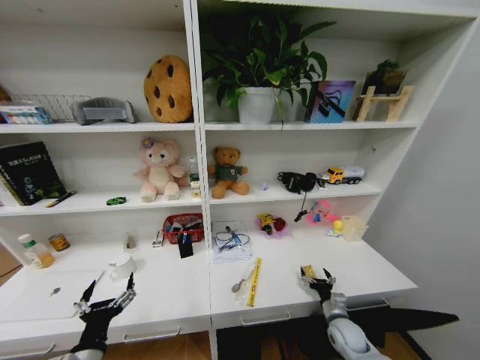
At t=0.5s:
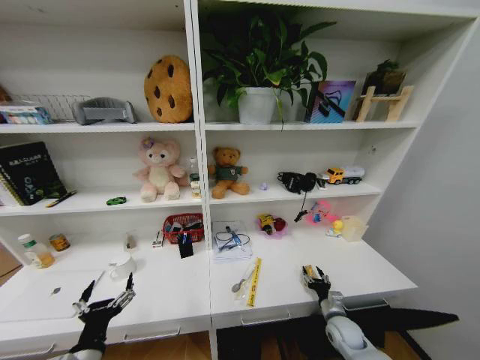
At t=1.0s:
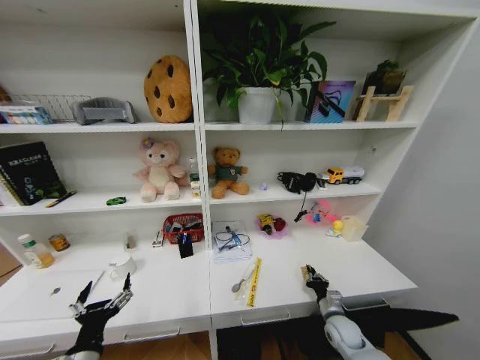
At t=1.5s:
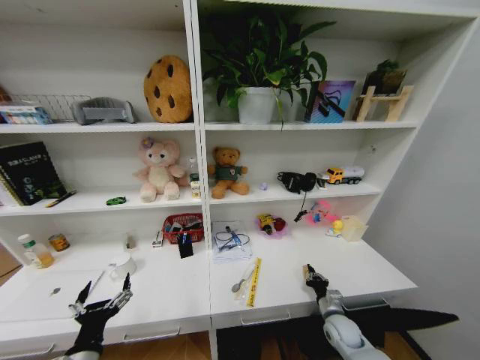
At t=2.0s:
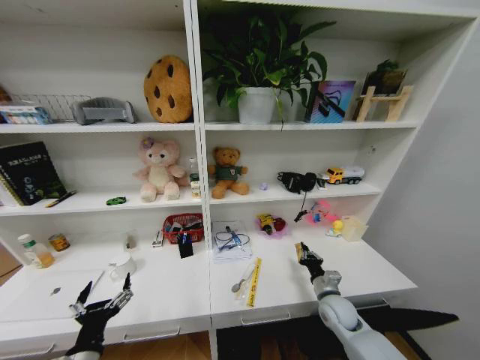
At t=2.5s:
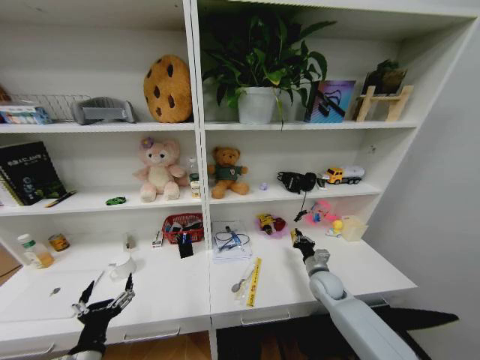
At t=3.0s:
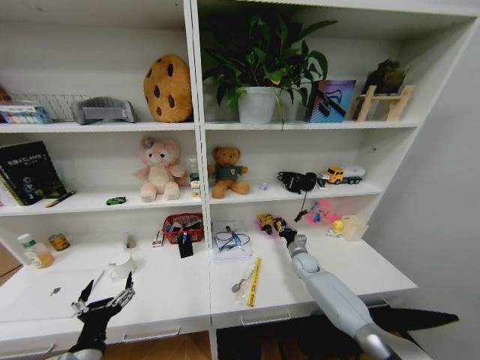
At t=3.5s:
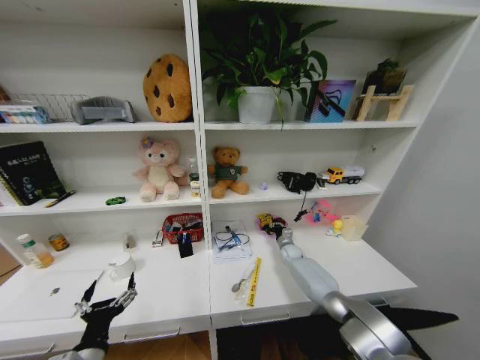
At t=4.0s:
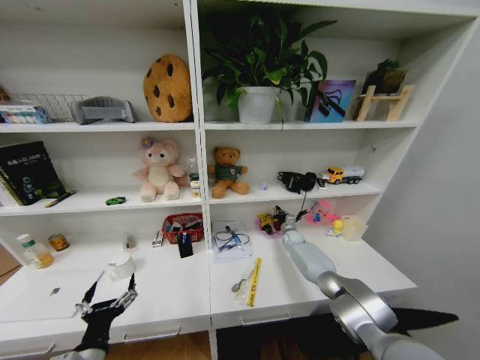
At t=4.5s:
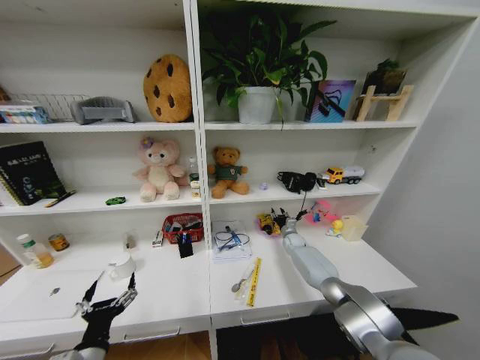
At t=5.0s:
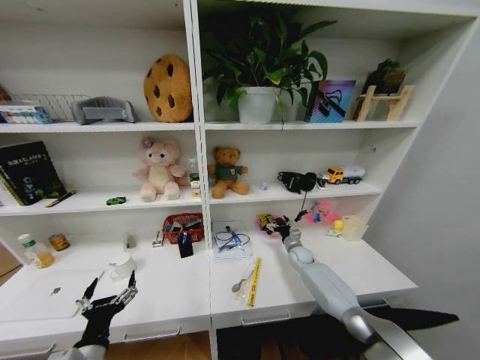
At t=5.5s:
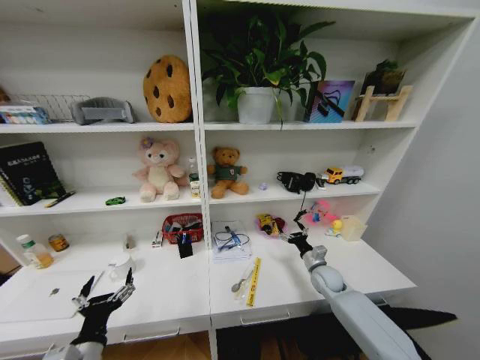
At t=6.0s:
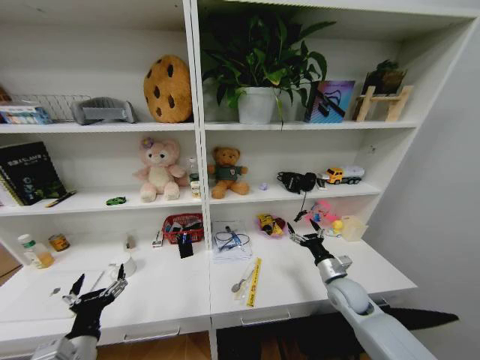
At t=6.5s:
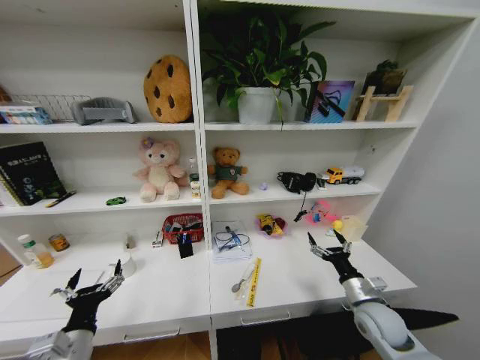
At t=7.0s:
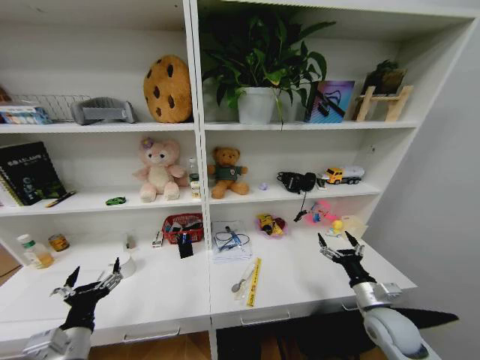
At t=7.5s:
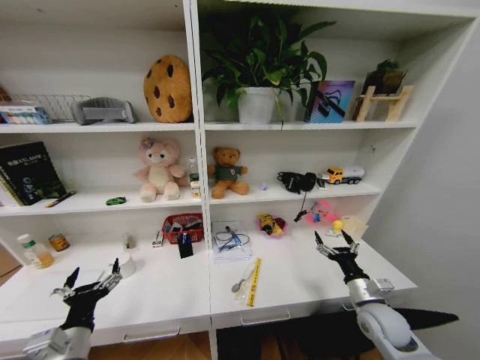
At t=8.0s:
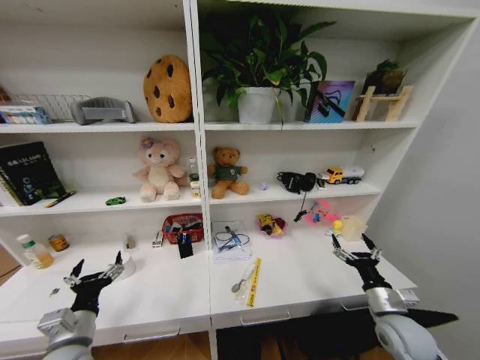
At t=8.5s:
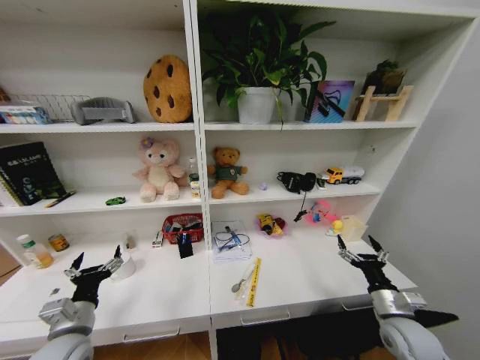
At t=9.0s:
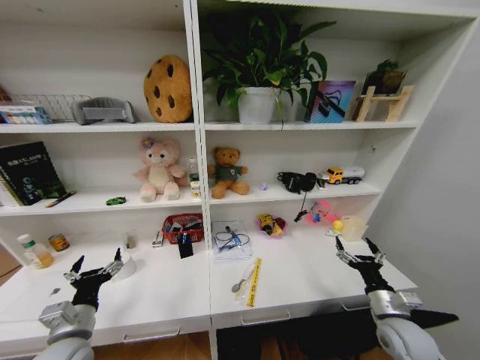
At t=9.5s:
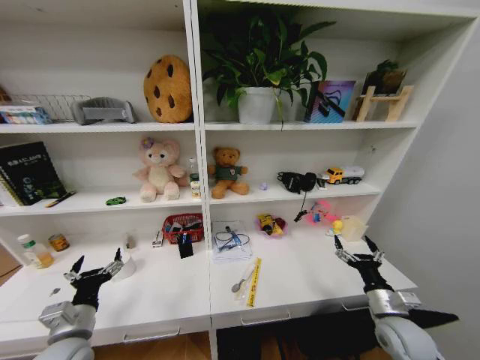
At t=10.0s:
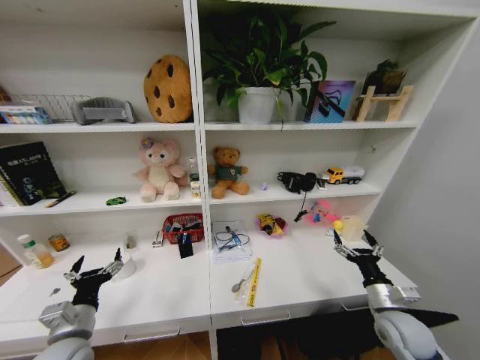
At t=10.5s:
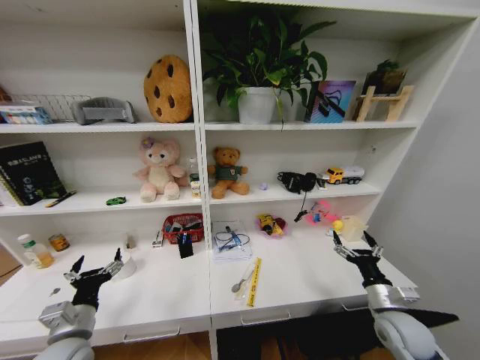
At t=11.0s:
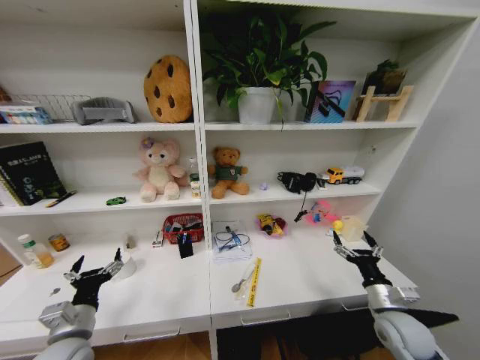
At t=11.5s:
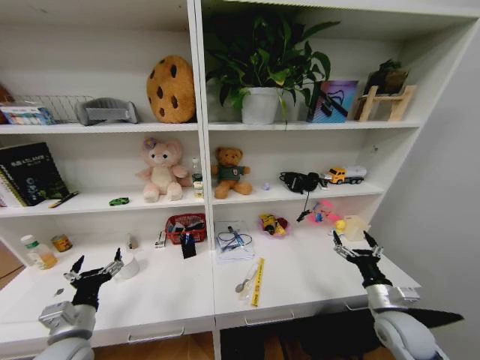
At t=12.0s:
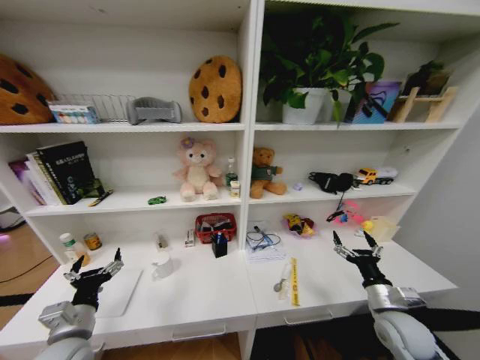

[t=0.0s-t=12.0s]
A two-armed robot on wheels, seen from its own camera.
Task of the whole recording: Organize the objects on the table.
t=0.0s to t=2.0s: The right gripper moves upward, some 5 cm, and closes up.
t=2.0s to t=4.0s: The right gripper travels forward by some 30 cm.
t=4.0s to t=6.0s: The right gripper moves backward, some 25 cm, and opens its fingers.
t=6.0s to t=8.0s: The left gripper heads forward, covering about 5 cm. Meanwhile the right gripper goes roughly 15 cm backward and to the right.
t=8.0s to t=10.0s: The grippers stay close to where they were, moving slightly.

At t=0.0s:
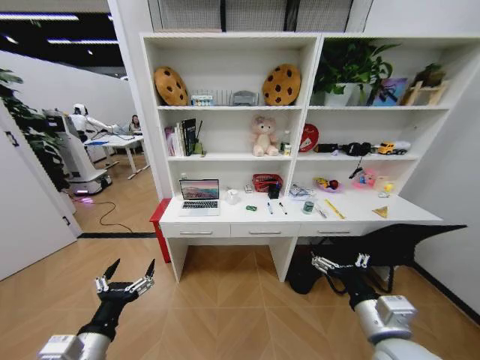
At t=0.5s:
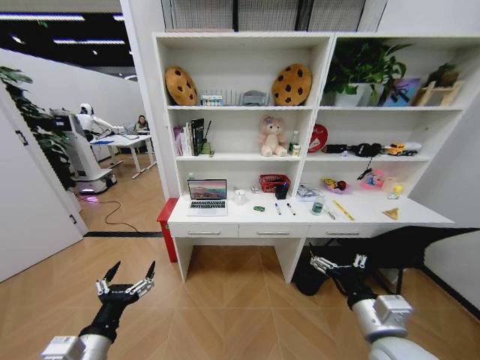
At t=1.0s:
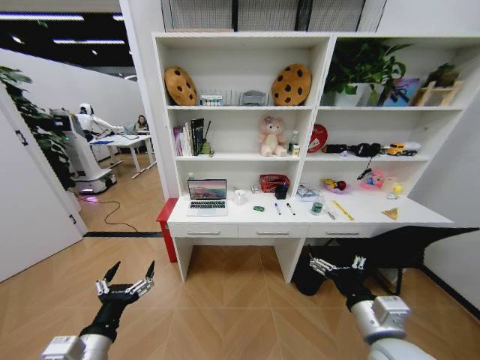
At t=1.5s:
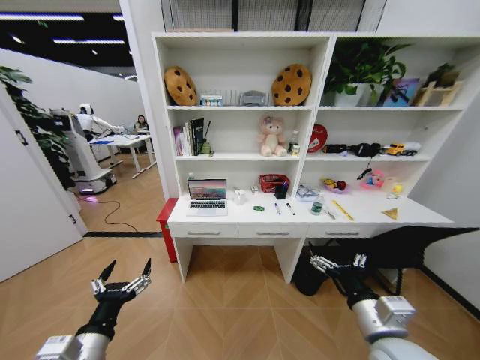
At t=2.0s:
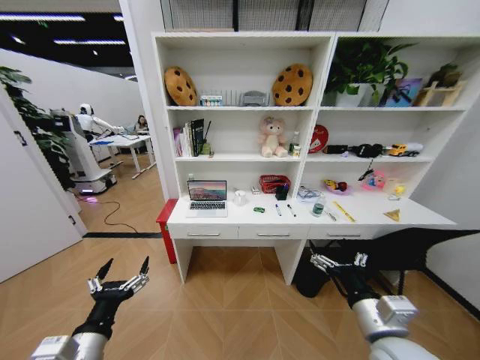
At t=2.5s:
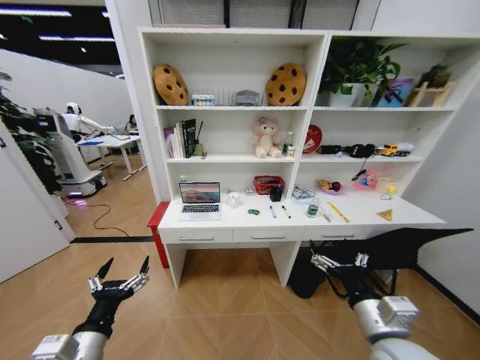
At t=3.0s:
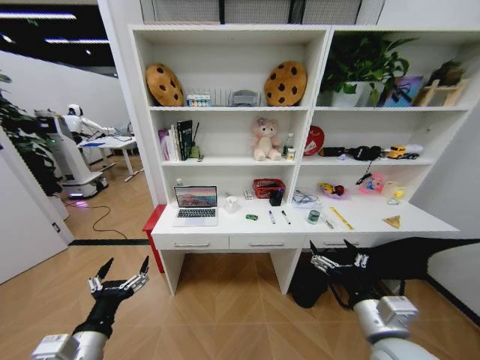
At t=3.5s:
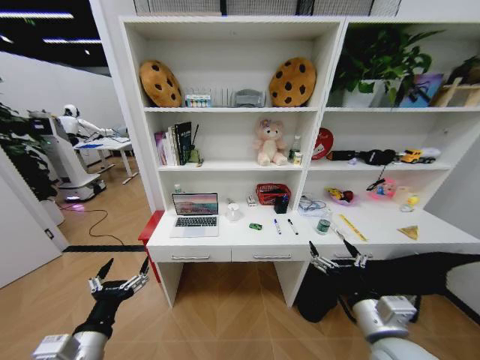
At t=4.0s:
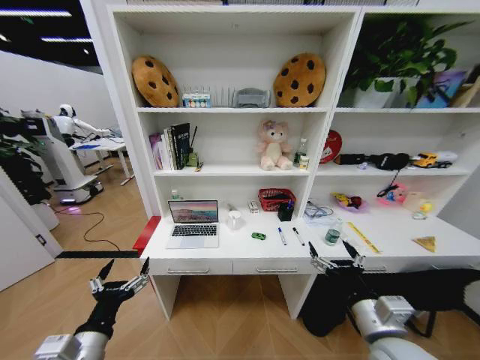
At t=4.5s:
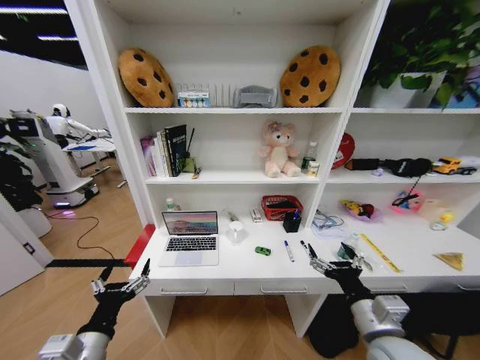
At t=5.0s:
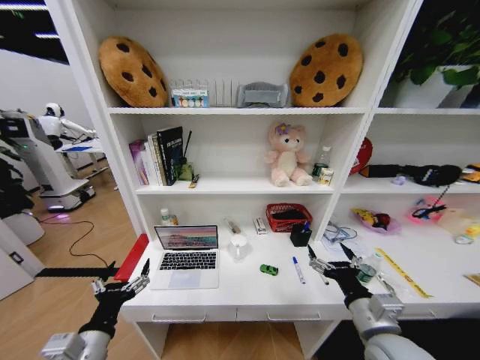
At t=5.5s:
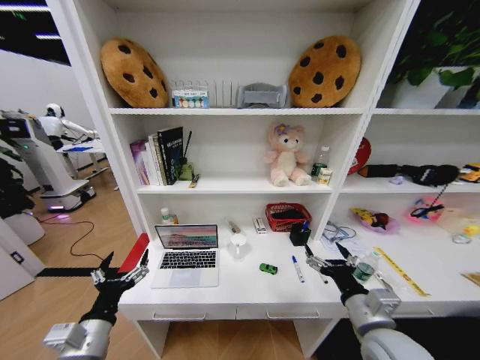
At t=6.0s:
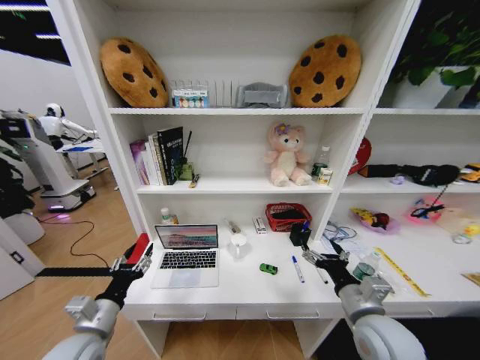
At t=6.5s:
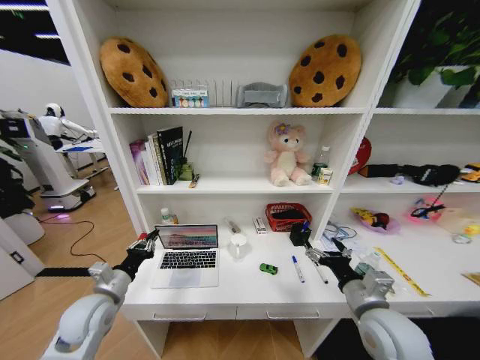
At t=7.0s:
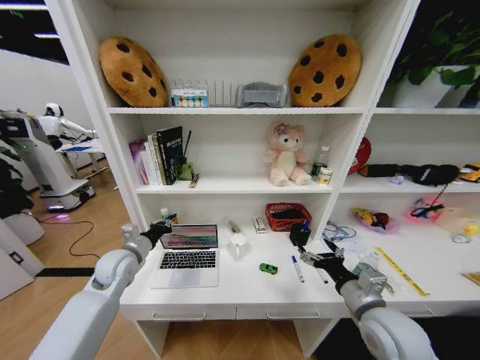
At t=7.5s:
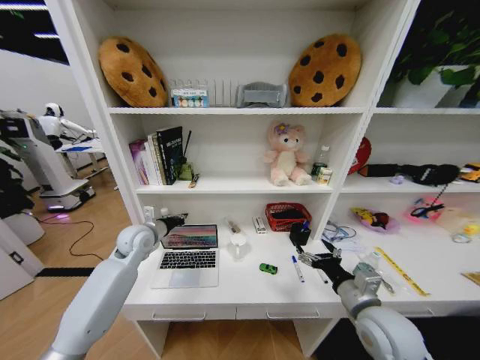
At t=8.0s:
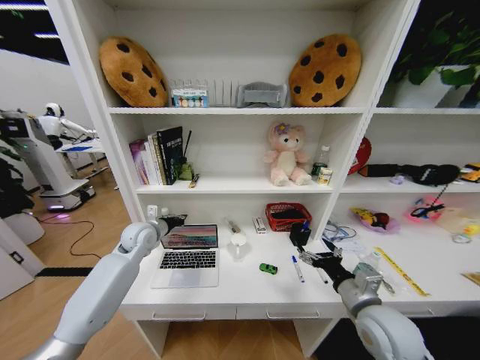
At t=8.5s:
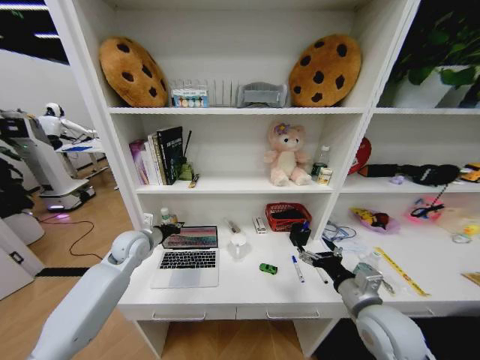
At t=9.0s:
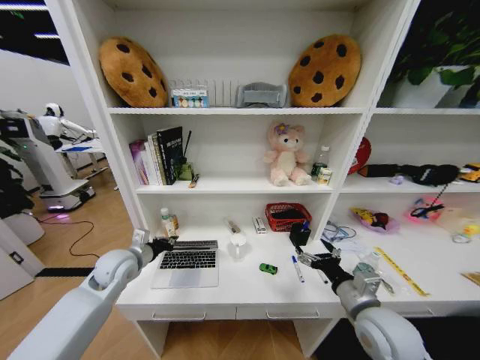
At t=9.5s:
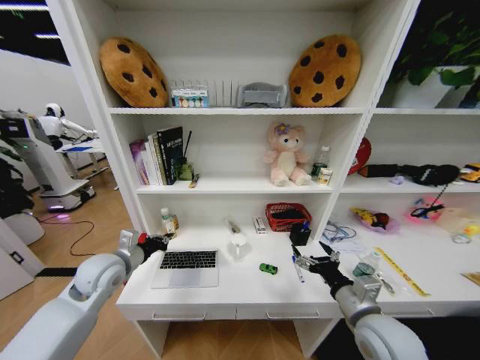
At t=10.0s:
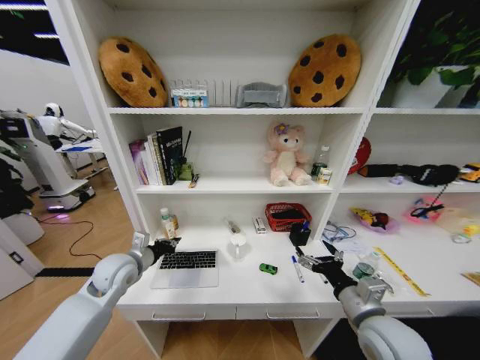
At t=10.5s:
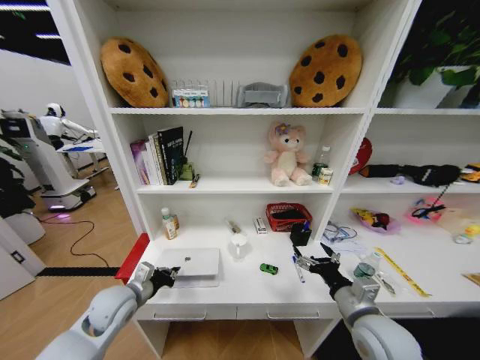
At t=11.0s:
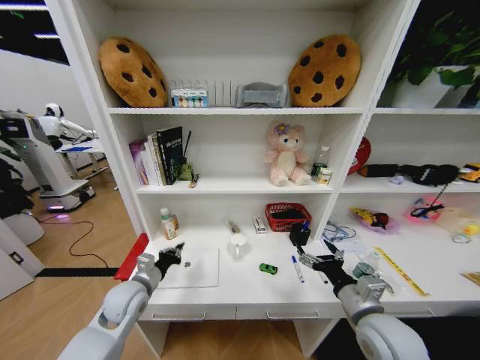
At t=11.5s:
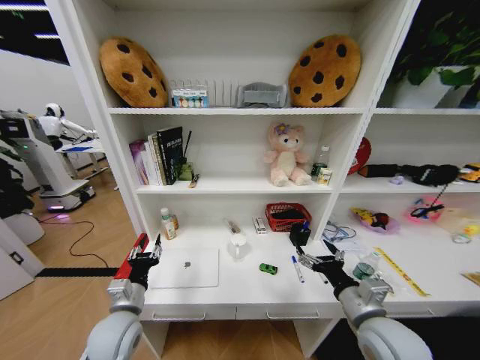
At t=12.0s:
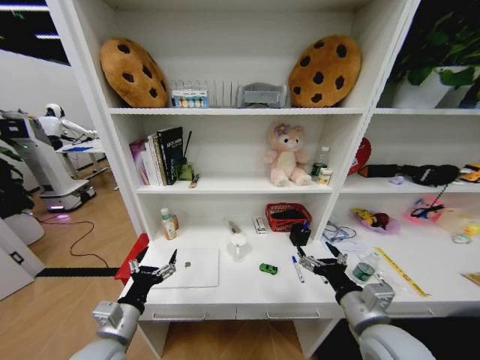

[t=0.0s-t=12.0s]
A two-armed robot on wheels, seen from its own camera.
Task of the whole recording: Organize the objects on the table.
t=4.0s to t=6.0s: The left gripper changes place by some 5 cm.
t=6.0s to t=8.0s: The left gripper travels forward by about 30 cm, and closes up.
t=8.0s to t=10.0s: The left gripper moves backward, approximately 10 cm.
t=10.0s to t=12.0s: The left gripper travels backward by some 20 cm, and opens its fingers.

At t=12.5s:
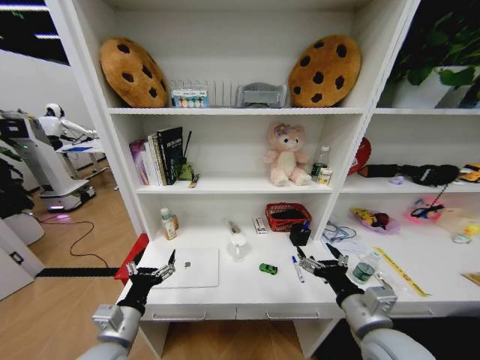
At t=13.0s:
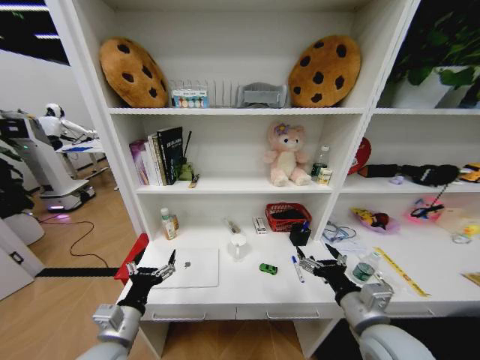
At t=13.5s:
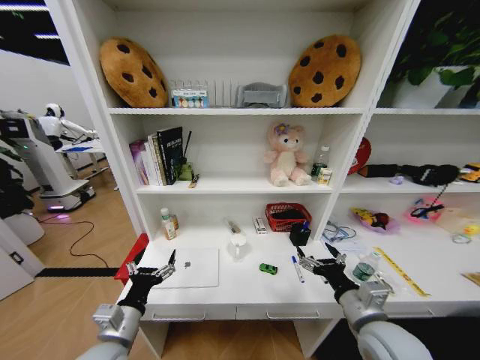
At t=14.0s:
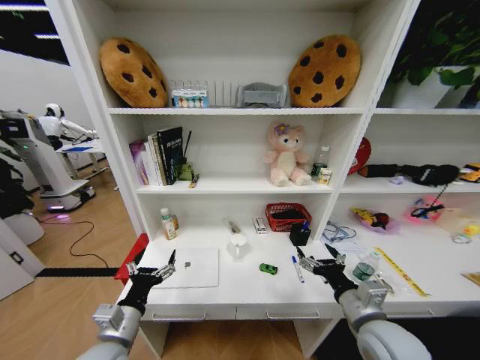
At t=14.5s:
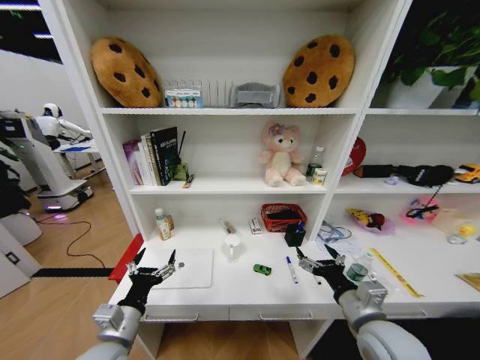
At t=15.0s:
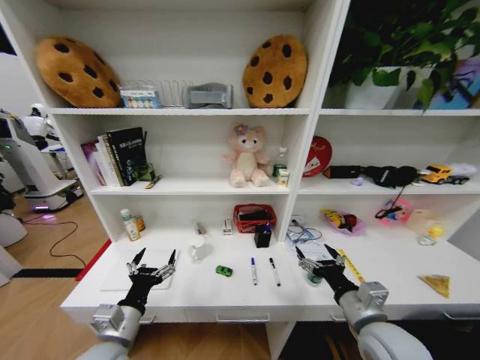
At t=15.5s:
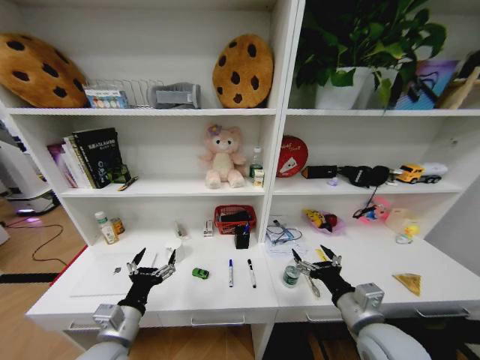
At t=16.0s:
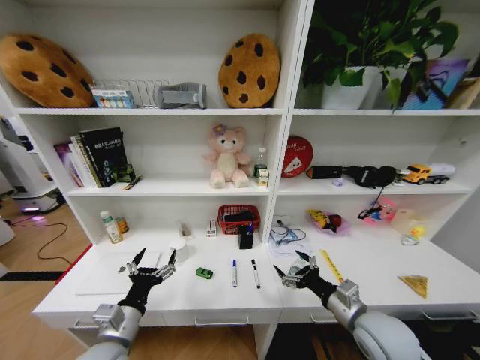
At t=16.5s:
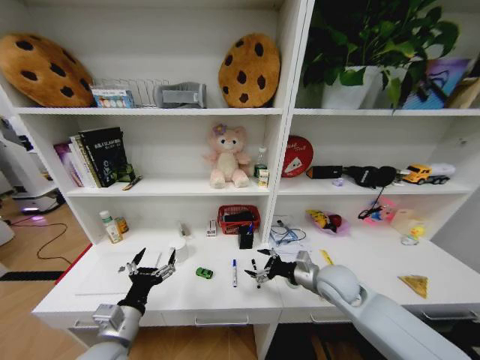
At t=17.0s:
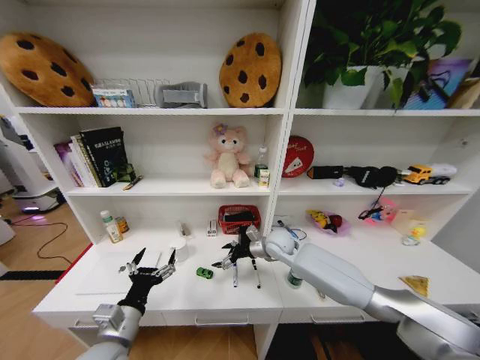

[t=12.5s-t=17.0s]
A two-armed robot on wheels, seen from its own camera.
Task of the whole recording: Organize the objects on the table.
t=12.5s to t=14.5s: The grippers move only a little.
t=14.5s to t=17.0s: The right gripper heads forward and to the left, covering roughly 30 cm.
